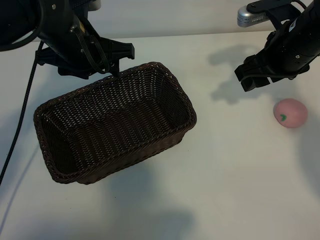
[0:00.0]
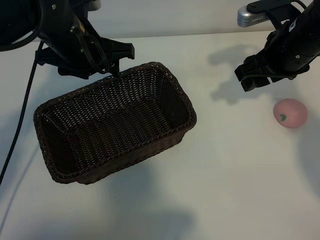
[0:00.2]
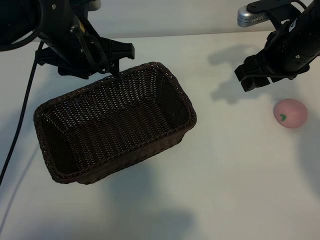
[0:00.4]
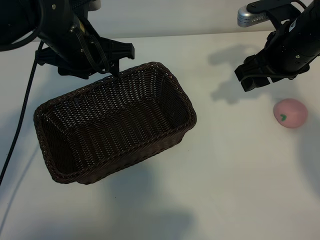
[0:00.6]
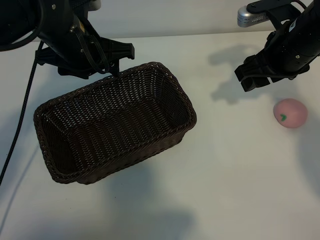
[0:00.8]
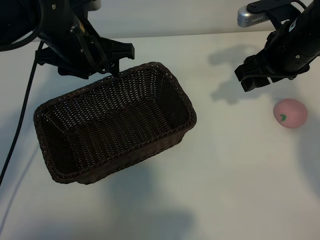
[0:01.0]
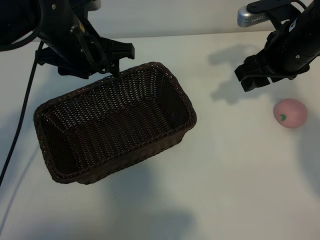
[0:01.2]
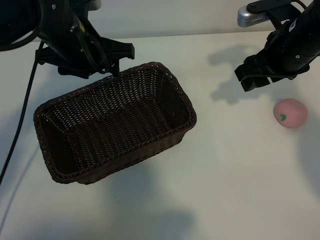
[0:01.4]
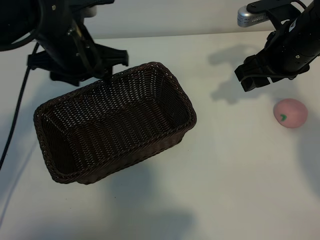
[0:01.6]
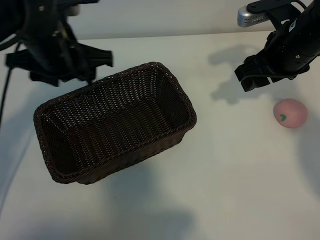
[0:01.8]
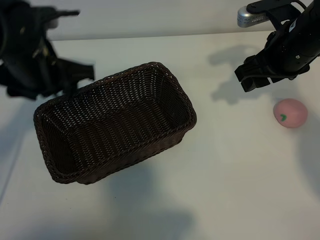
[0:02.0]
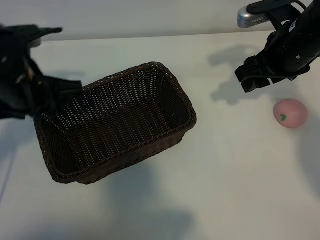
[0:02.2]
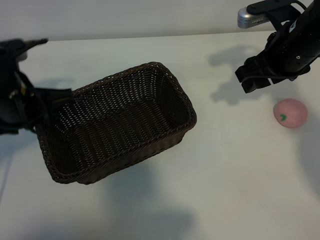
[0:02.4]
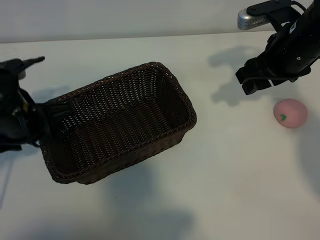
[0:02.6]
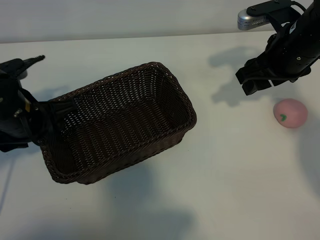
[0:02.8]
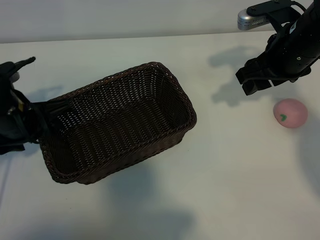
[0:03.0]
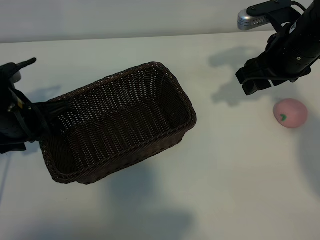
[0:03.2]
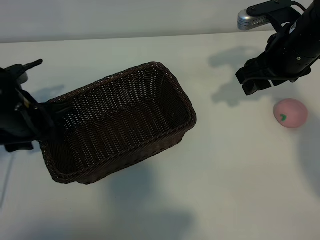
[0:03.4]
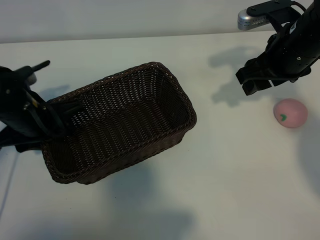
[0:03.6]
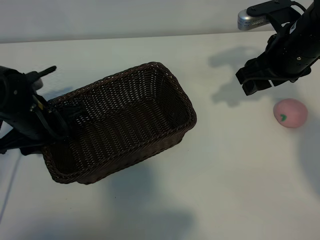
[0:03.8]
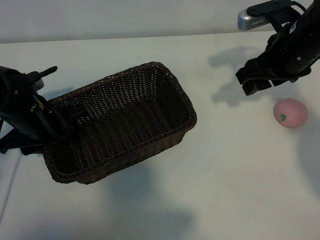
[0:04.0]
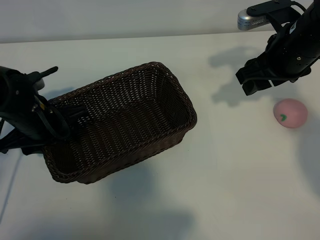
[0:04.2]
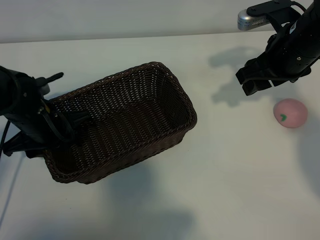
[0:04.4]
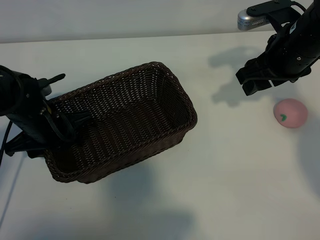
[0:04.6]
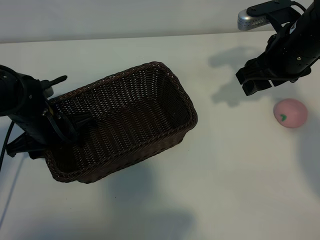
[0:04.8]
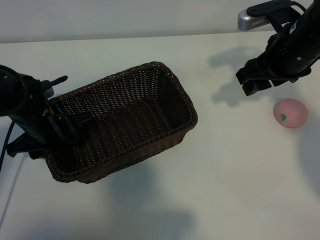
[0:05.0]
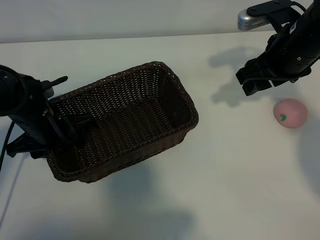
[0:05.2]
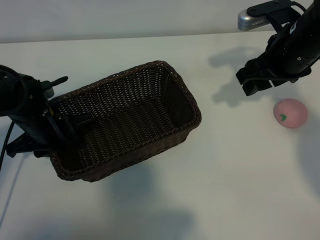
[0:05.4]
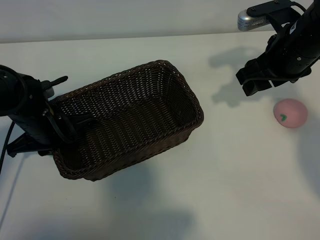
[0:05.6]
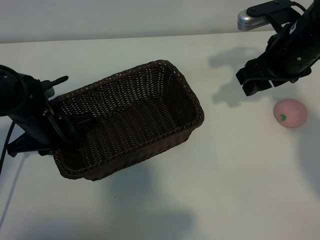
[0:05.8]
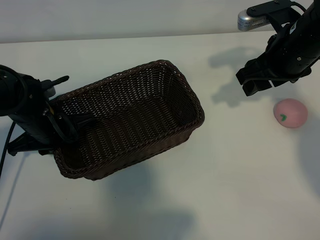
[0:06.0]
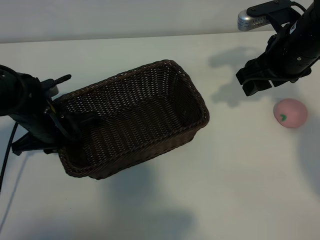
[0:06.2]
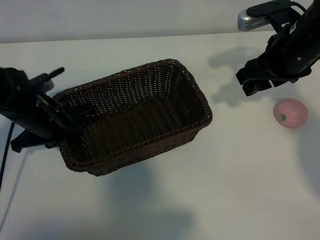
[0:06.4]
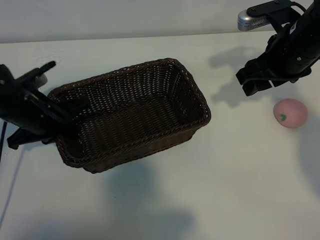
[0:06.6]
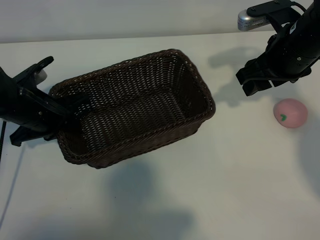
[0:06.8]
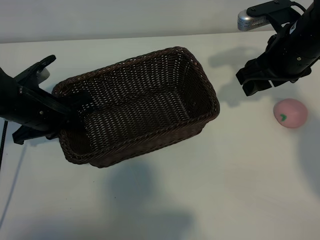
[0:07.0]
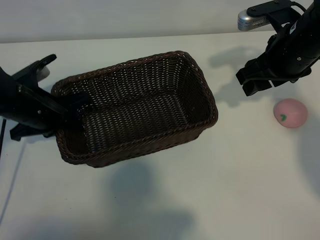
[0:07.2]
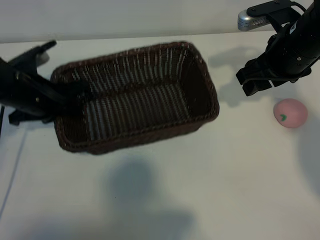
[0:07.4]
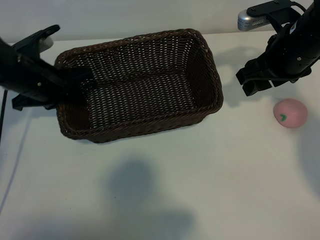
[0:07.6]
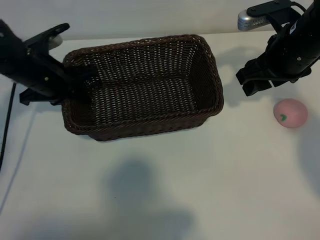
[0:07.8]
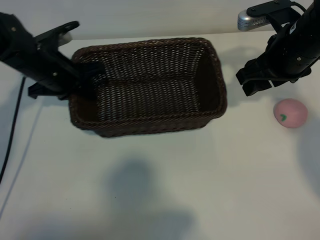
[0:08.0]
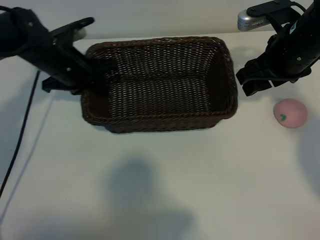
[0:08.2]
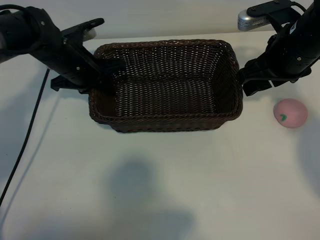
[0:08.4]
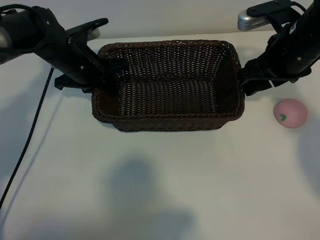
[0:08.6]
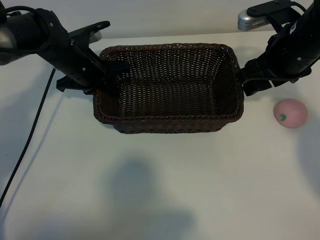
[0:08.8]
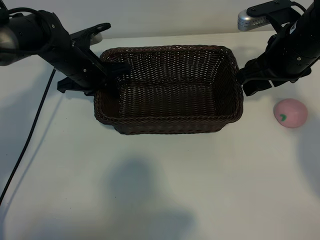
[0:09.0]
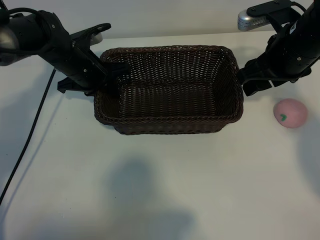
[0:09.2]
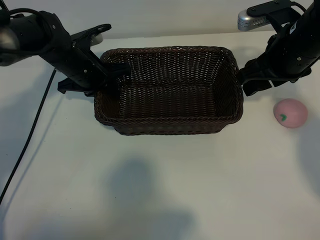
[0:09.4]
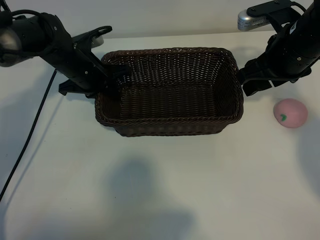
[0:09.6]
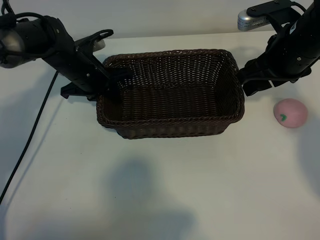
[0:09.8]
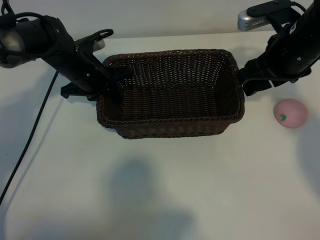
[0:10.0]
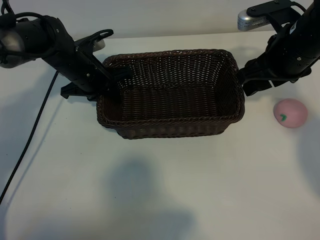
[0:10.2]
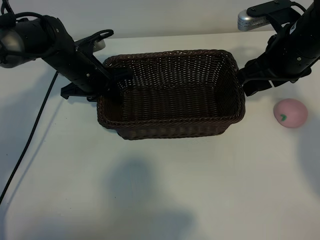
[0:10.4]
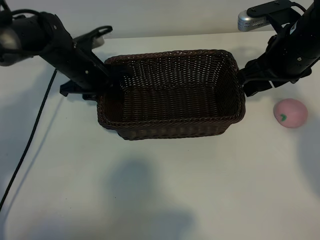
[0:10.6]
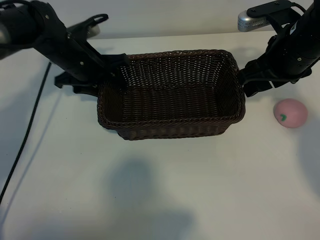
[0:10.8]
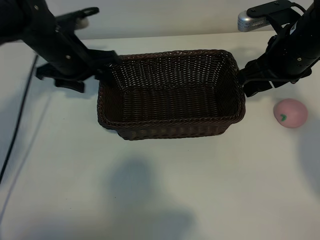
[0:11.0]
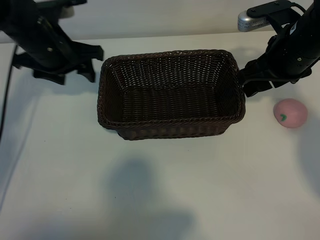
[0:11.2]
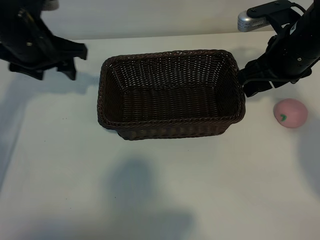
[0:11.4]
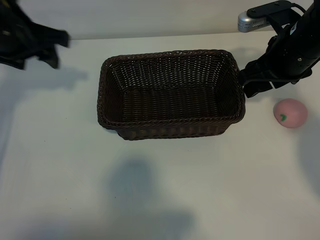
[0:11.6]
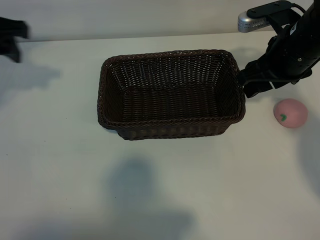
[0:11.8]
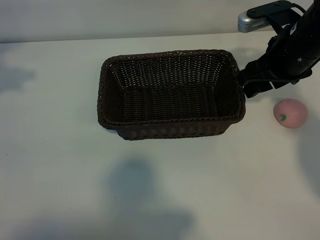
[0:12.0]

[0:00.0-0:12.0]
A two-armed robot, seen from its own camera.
Task of the whole recording: pick up the peach and put it into the basket.
Step, 0:01.4 to 0:05.8: Grasp the basket with left gripper.
Step, 0:06.2 to 0:10.8: Place the basket in the center of view with left gripper.

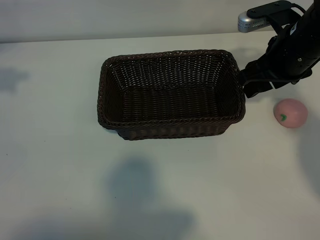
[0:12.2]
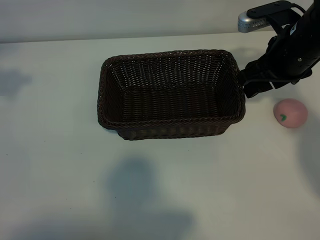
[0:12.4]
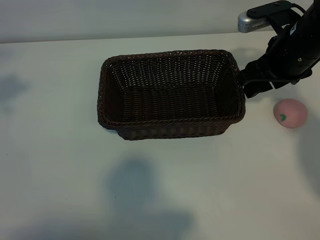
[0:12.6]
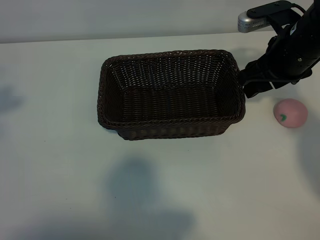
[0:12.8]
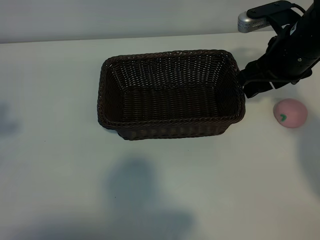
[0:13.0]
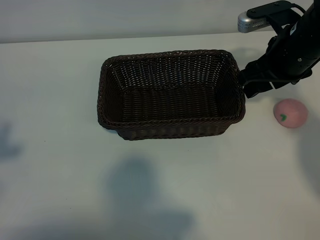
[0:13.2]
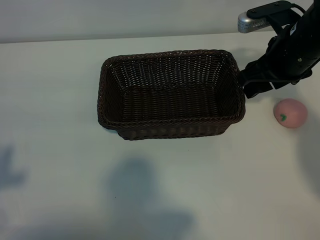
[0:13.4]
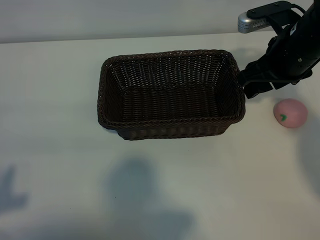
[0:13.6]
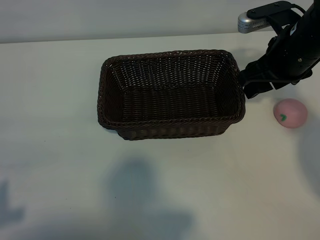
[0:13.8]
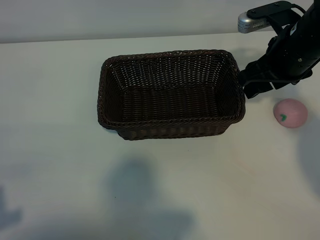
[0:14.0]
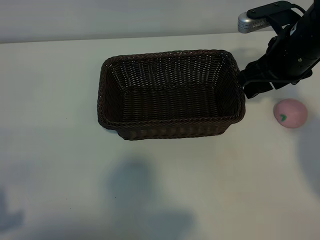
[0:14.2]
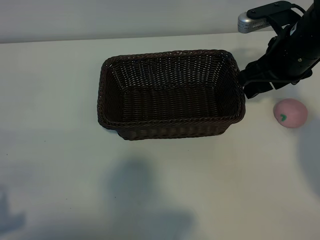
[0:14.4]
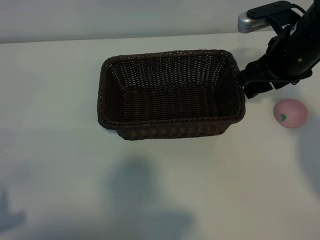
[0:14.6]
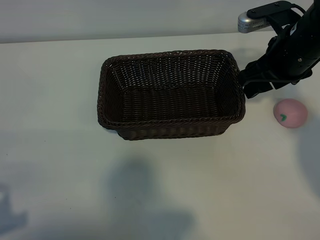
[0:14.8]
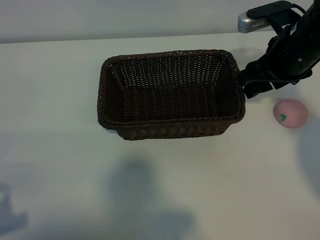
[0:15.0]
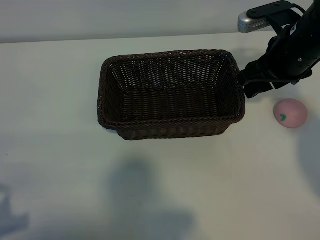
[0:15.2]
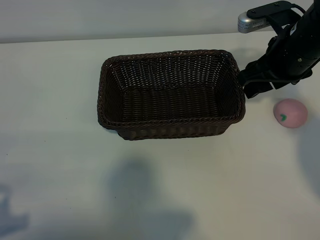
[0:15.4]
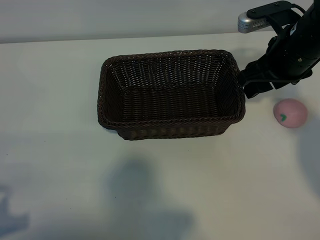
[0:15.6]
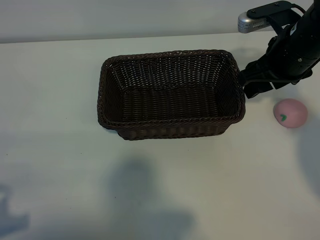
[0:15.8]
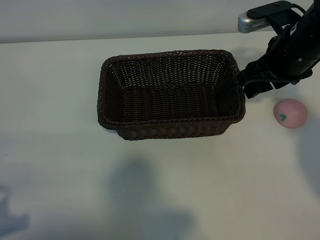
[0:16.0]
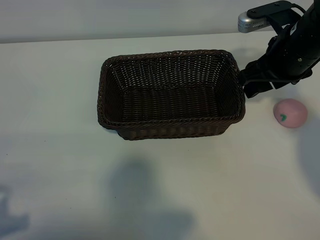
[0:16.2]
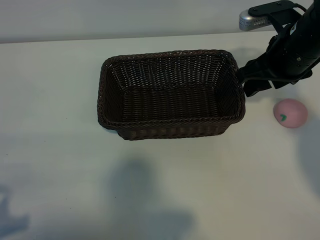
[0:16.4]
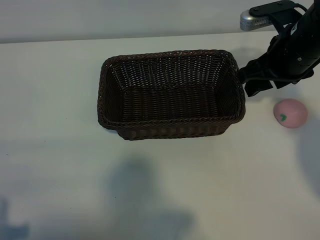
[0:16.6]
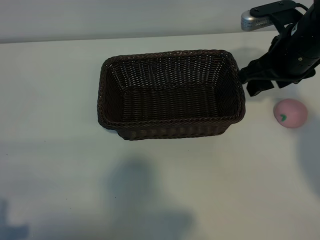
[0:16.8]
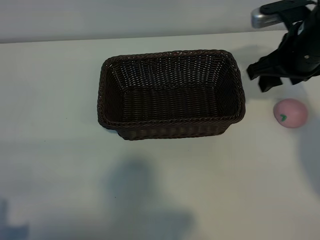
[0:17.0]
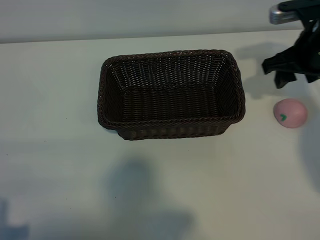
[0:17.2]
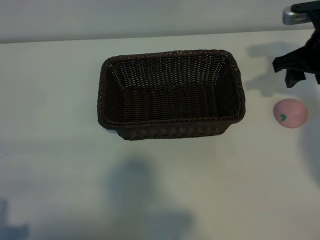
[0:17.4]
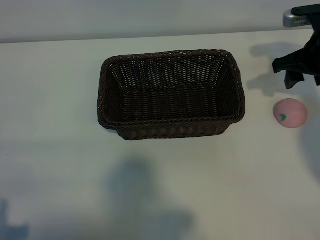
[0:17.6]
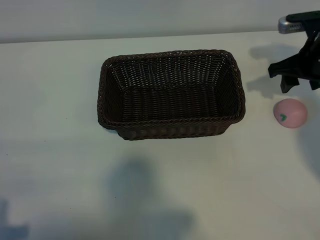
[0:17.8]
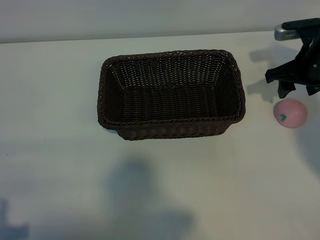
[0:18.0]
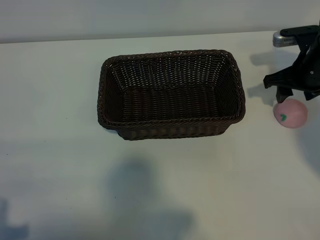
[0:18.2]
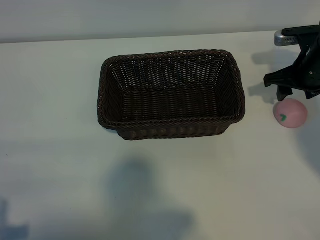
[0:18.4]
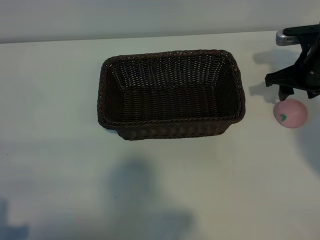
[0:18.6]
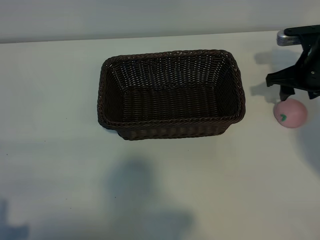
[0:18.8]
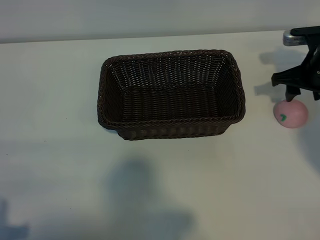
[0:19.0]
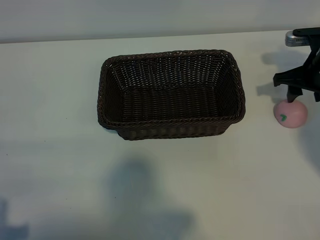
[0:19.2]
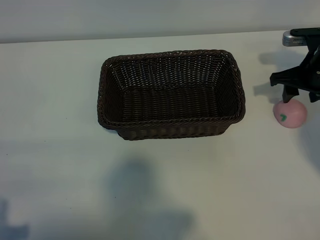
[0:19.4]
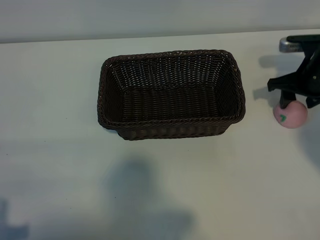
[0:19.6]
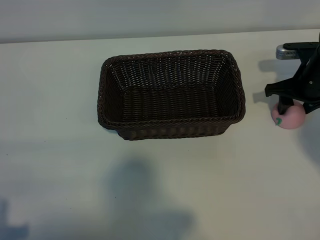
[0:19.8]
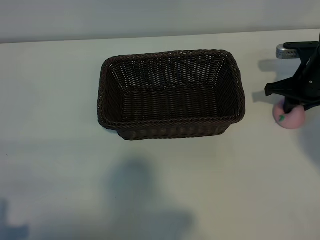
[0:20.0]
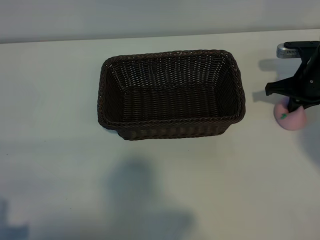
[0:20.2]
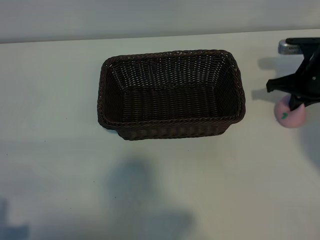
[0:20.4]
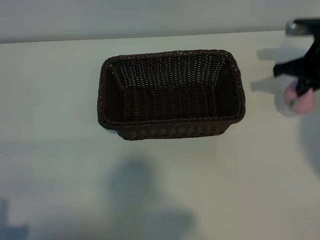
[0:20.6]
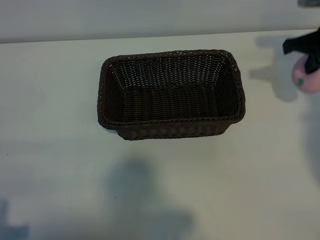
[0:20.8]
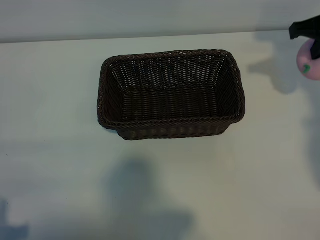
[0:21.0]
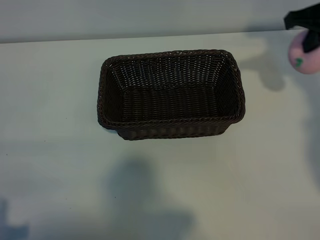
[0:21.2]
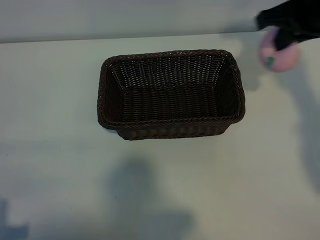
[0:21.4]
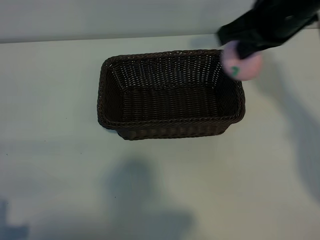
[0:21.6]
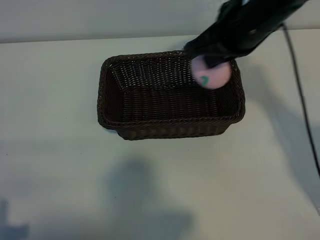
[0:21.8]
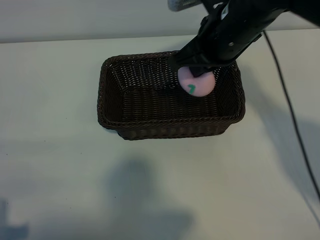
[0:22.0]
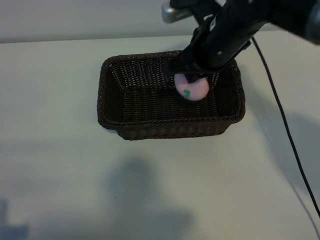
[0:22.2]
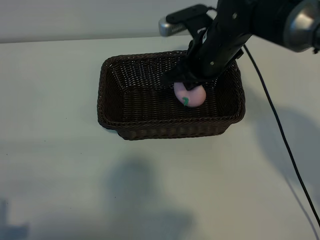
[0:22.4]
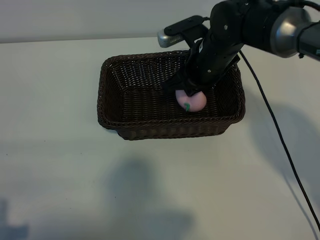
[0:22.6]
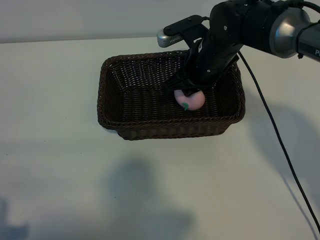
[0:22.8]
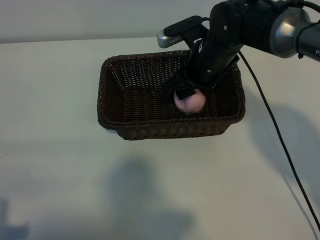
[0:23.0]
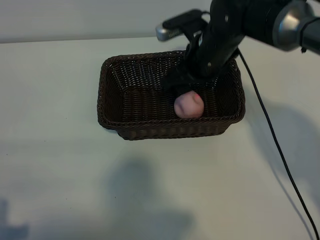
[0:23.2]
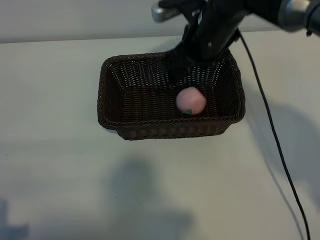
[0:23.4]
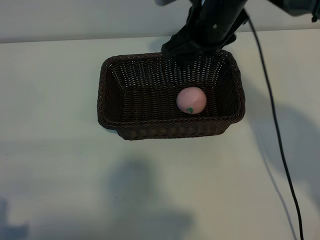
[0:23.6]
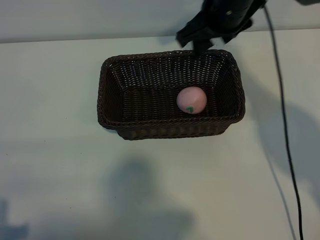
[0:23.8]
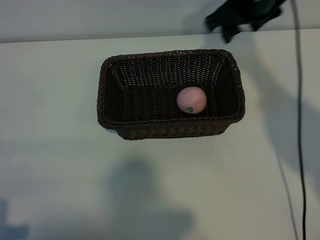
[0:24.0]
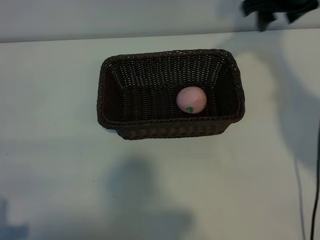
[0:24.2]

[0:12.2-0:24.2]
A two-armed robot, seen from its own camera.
Task of the whole recording: pick up the peach and put it into the basket.
Step, 0:12.2 to 0:20.2: Grasp the peach with right gripper.
Step, 0:20.4 to 0:23.2: Place the peach in the basket with right gripper.
